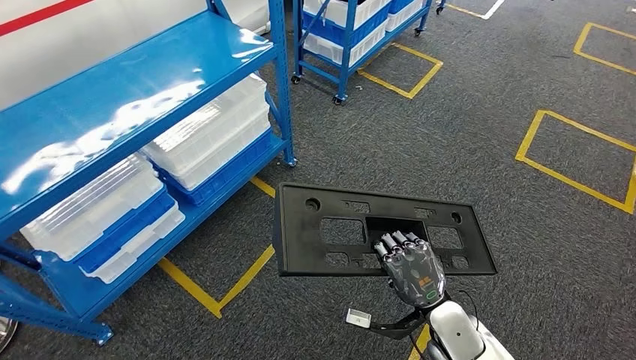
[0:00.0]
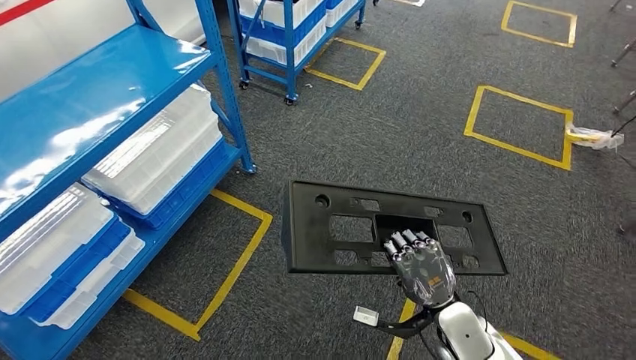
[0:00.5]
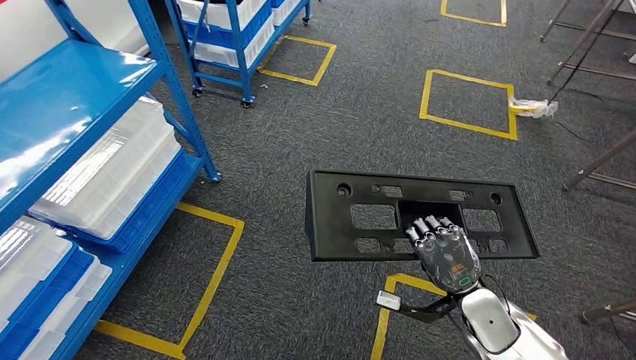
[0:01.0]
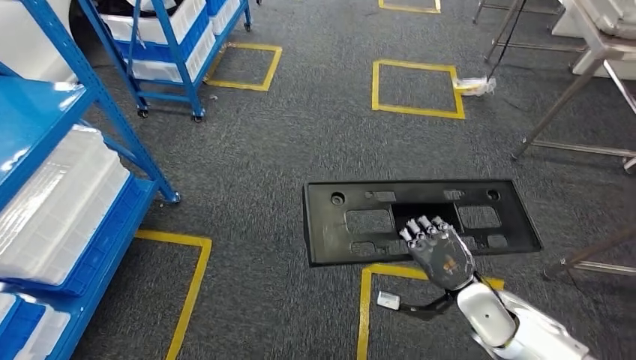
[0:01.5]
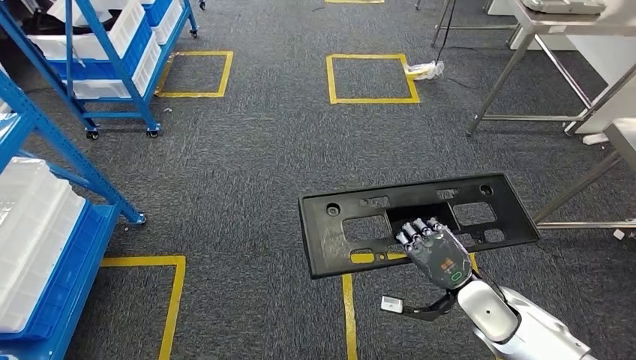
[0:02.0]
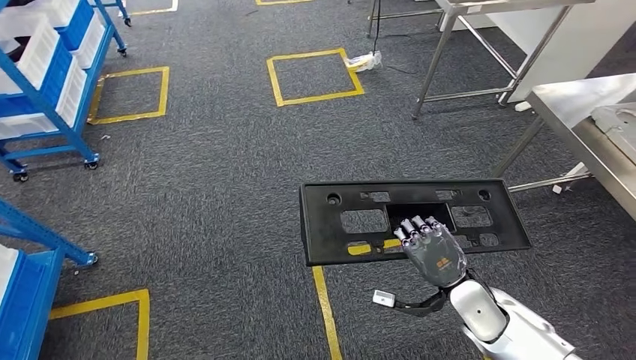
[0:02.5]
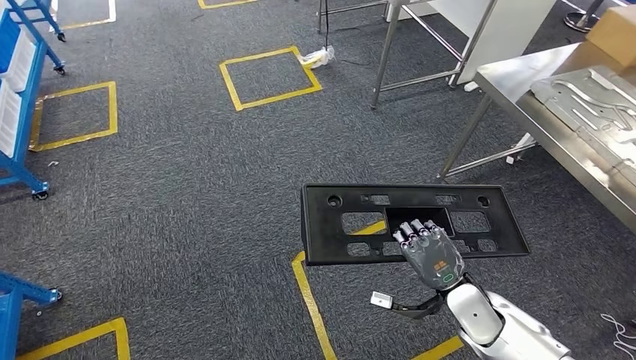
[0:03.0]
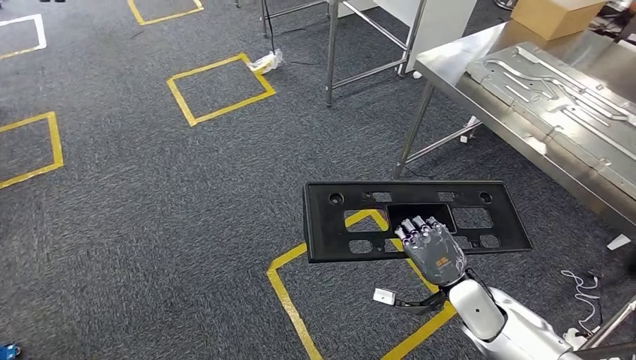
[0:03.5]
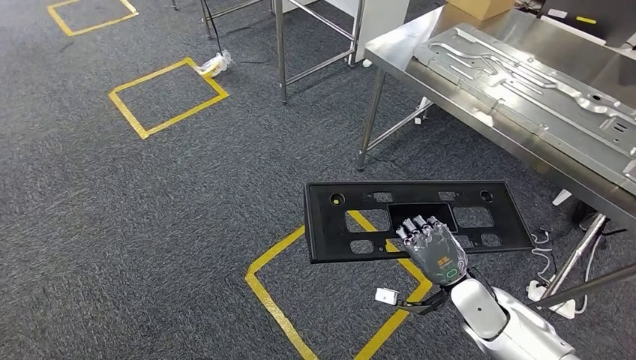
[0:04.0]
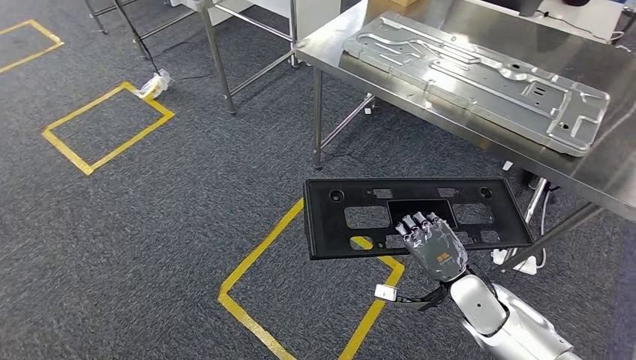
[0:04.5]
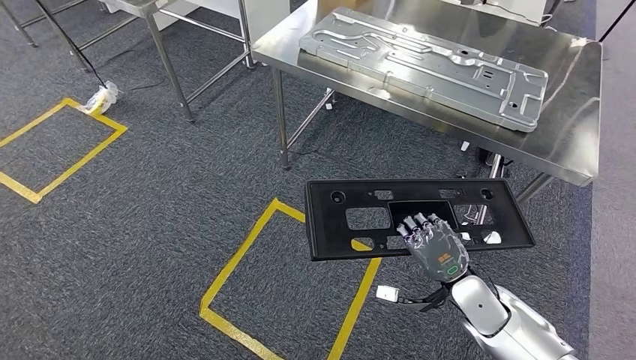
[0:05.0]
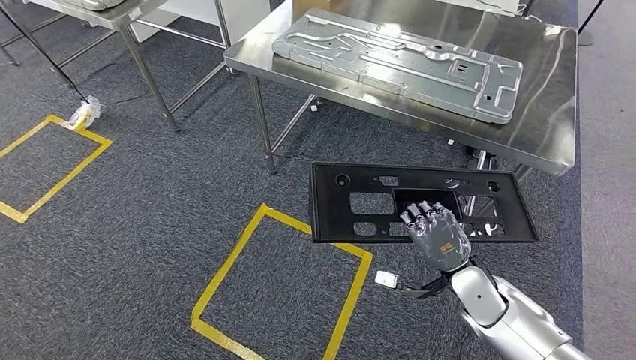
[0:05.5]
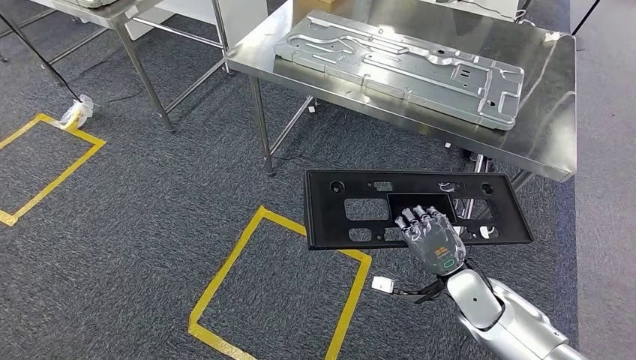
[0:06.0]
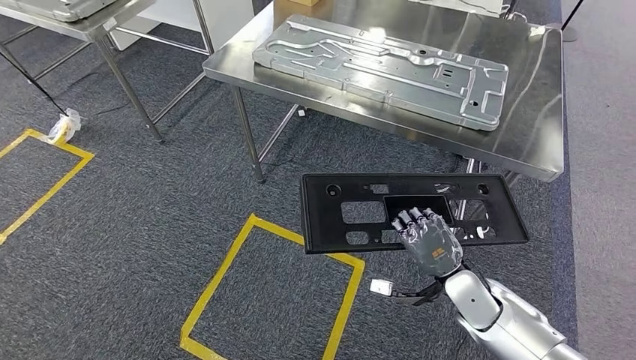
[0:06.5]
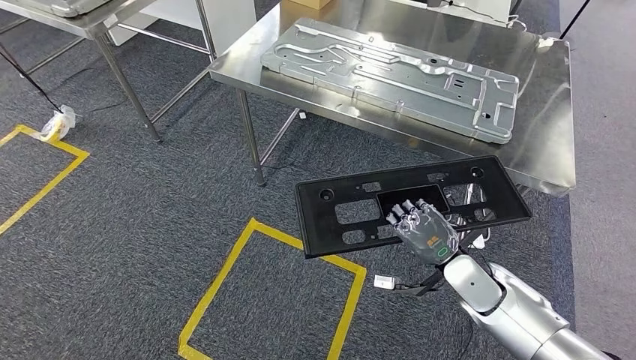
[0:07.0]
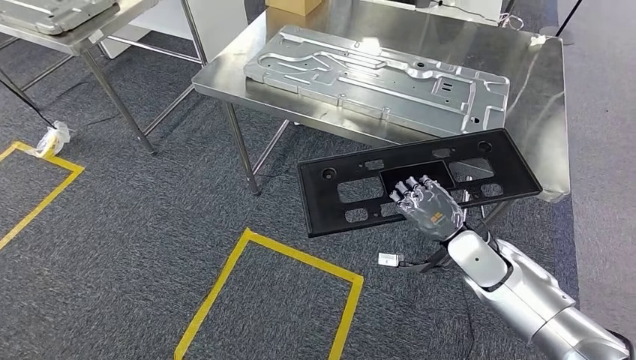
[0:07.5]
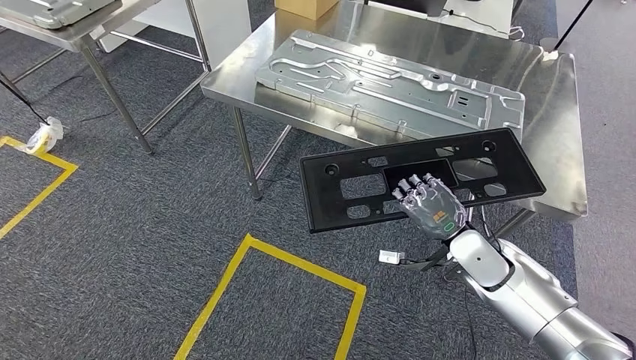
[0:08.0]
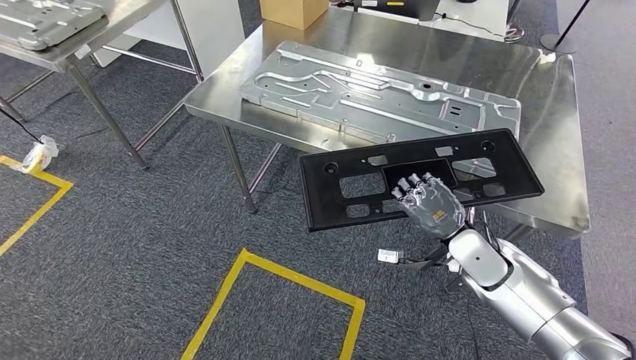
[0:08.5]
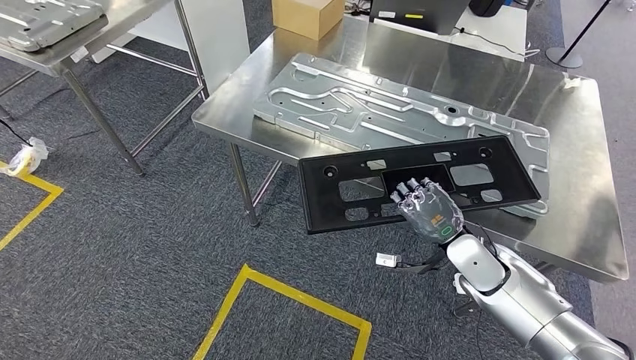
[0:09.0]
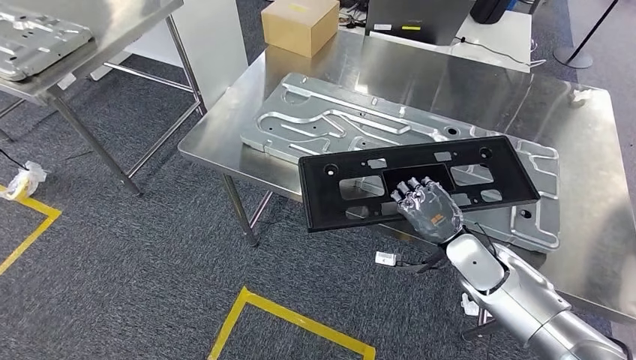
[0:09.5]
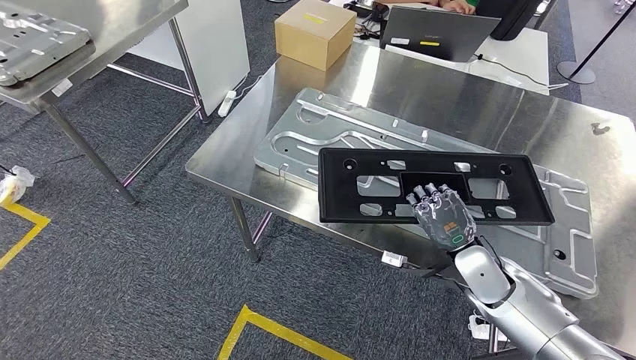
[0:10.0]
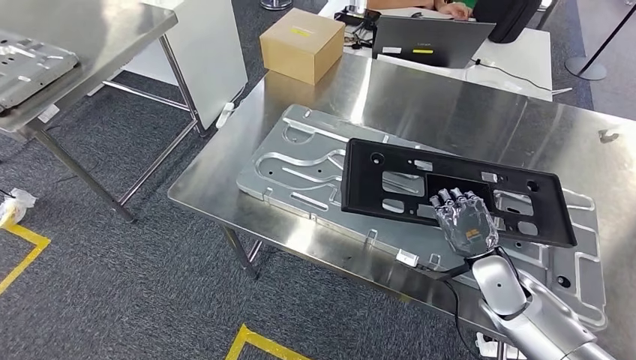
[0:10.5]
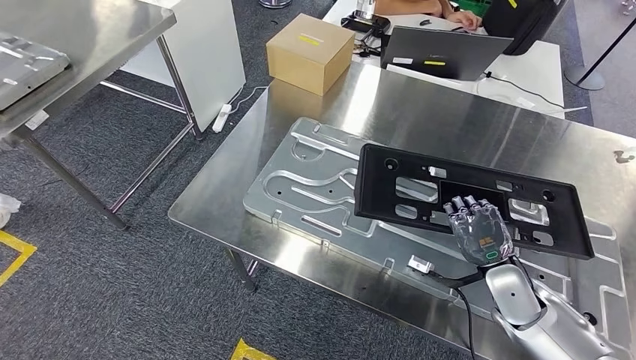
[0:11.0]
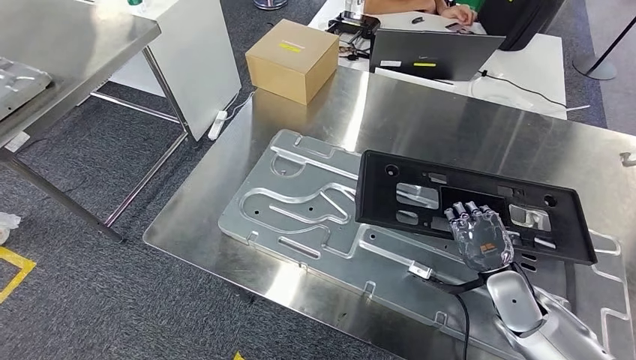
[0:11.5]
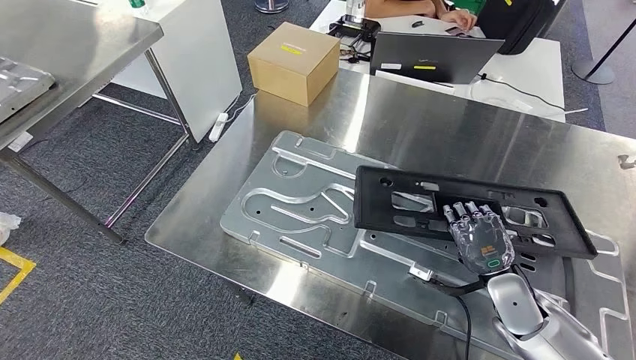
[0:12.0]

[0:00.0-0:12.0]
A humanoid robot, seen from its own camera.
Step, 0:00.0 to 0:08.0: Move the large material to the workbench.

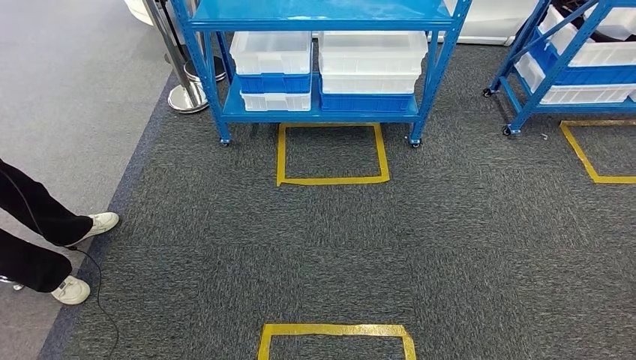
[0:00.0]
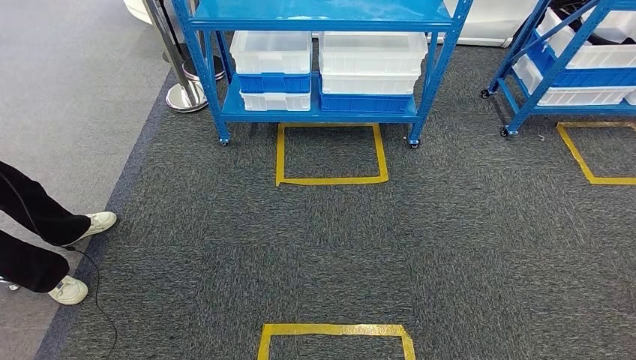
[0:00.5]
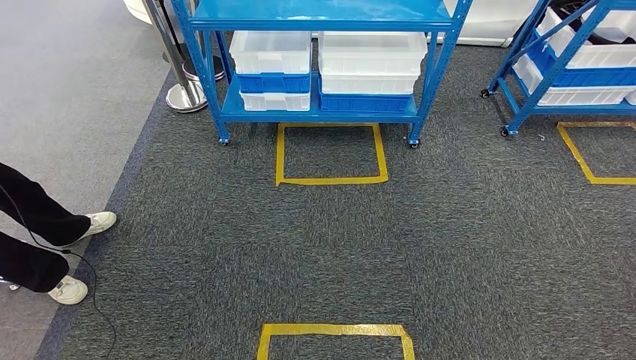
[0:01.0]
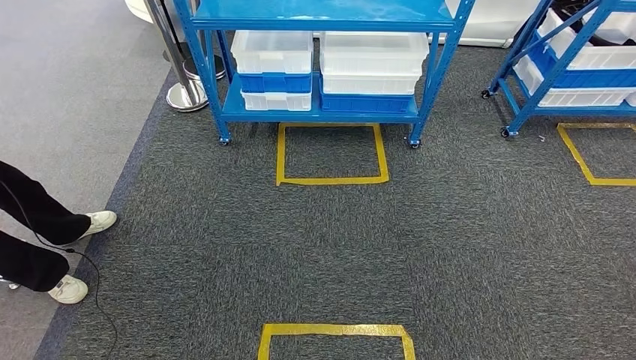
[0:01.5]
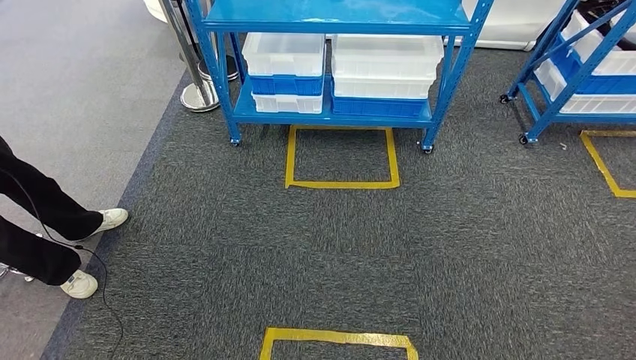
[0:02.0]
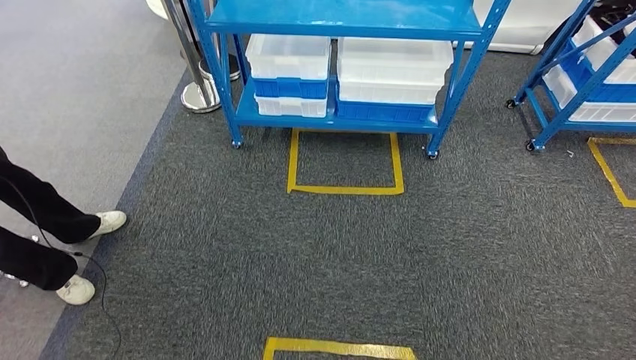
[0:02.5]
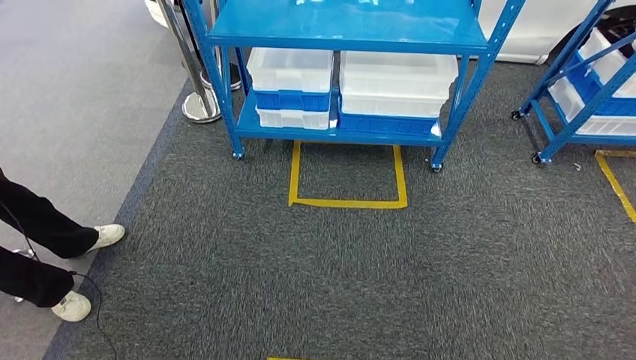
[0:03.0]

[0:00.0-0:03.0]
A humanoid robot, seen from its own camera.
Step, 0:00.0 to 0:03.0: Return to the initial position at the shelf.
0:00.0 to 0:01.5: The hands make only small movements.
